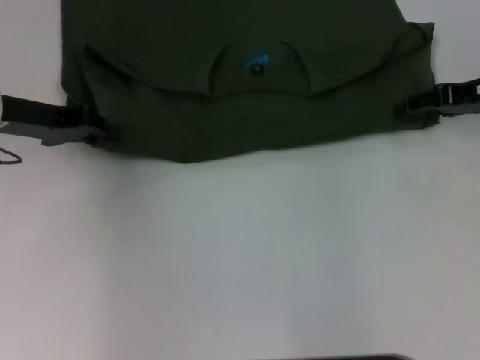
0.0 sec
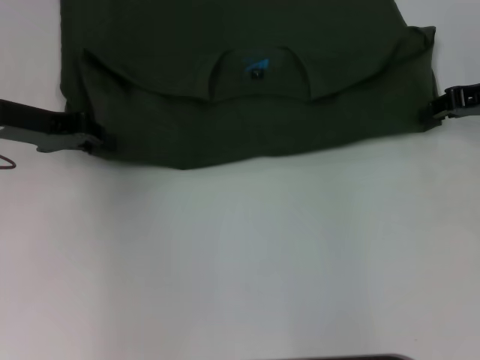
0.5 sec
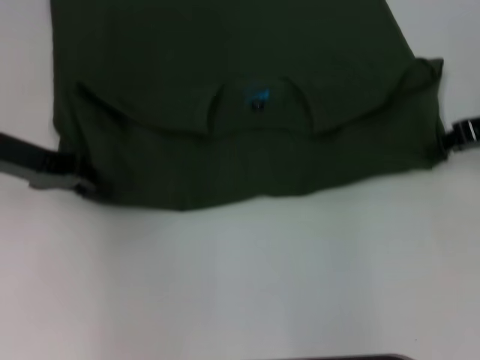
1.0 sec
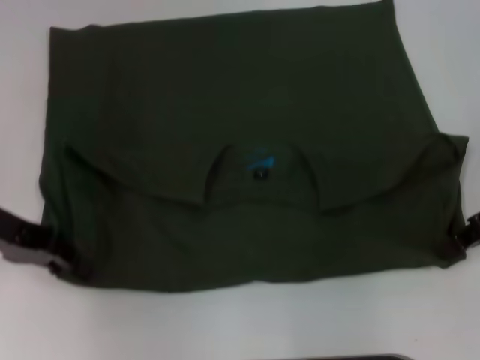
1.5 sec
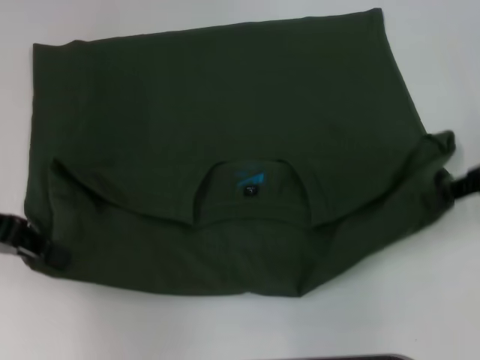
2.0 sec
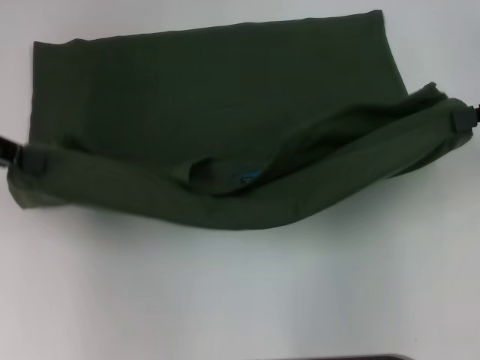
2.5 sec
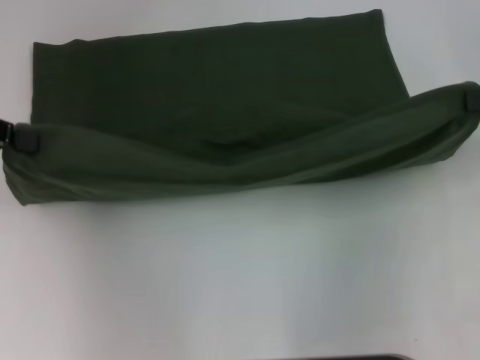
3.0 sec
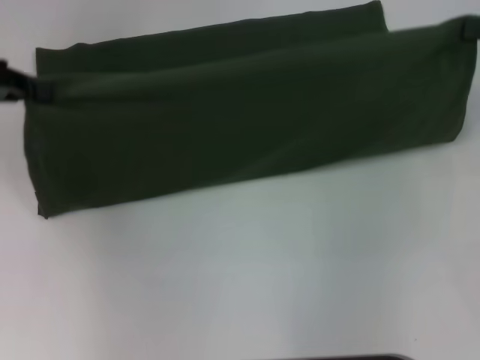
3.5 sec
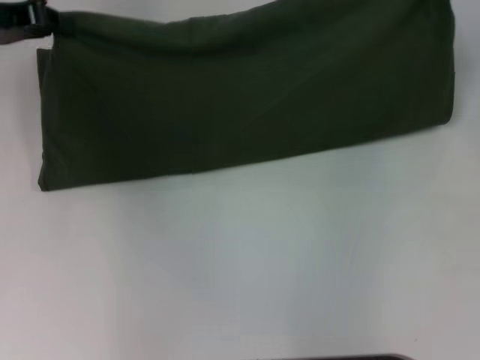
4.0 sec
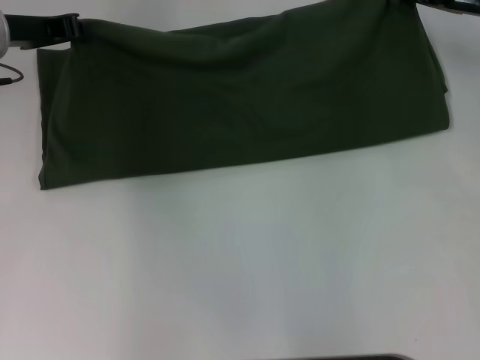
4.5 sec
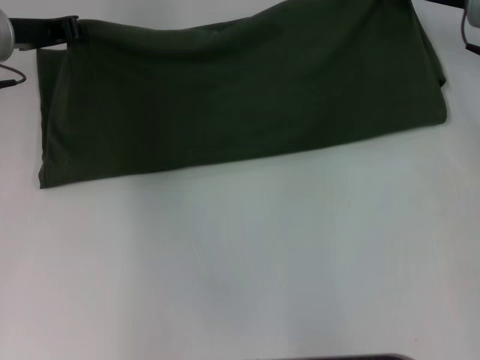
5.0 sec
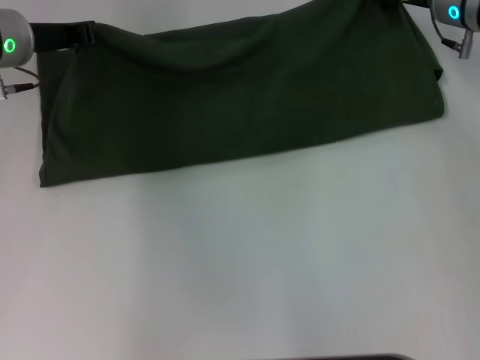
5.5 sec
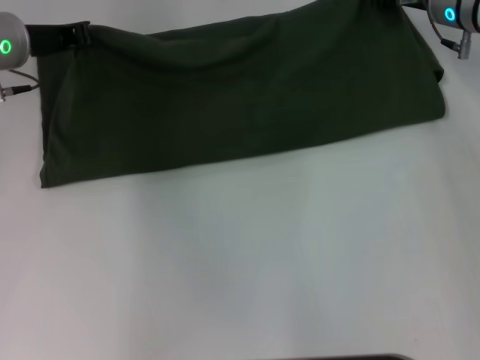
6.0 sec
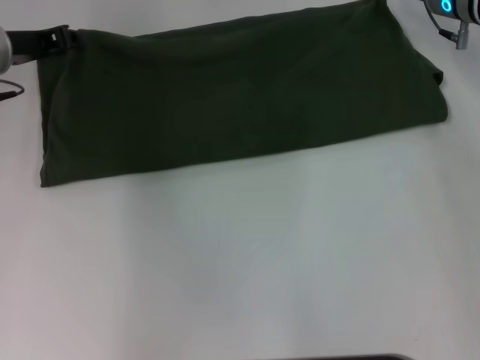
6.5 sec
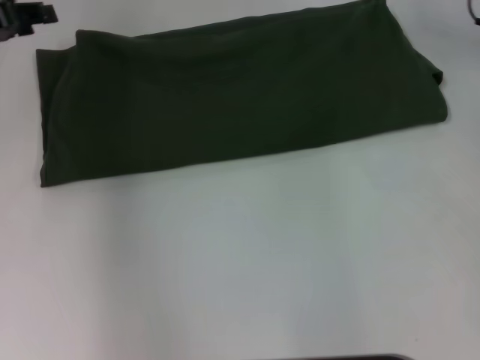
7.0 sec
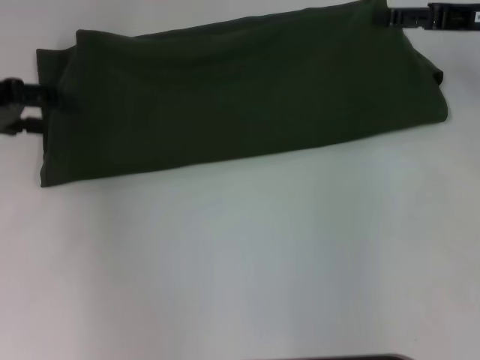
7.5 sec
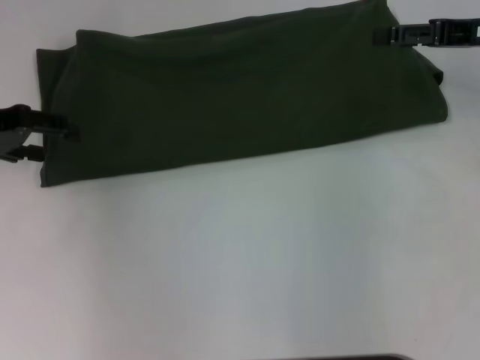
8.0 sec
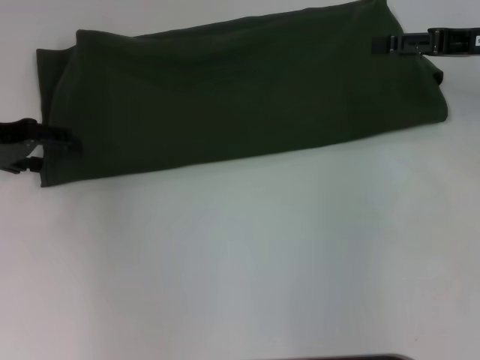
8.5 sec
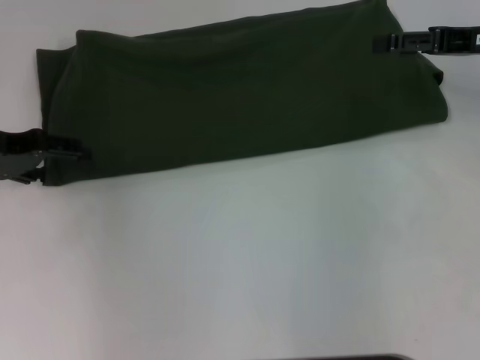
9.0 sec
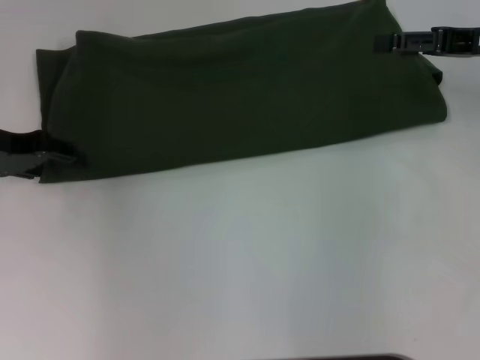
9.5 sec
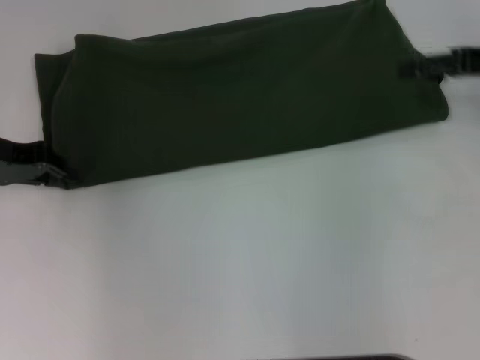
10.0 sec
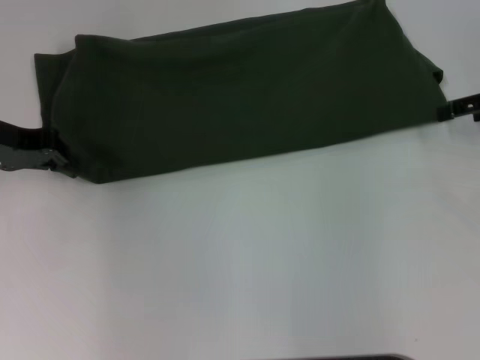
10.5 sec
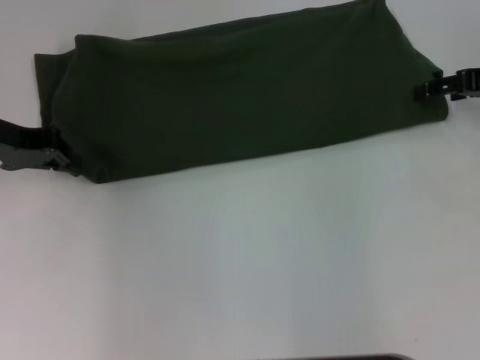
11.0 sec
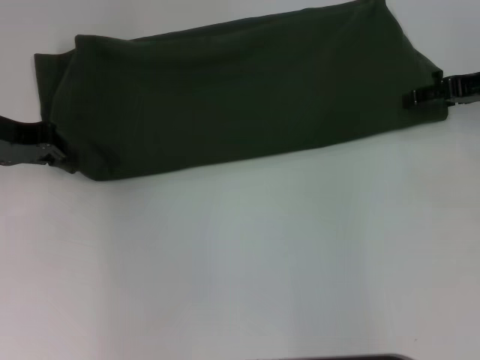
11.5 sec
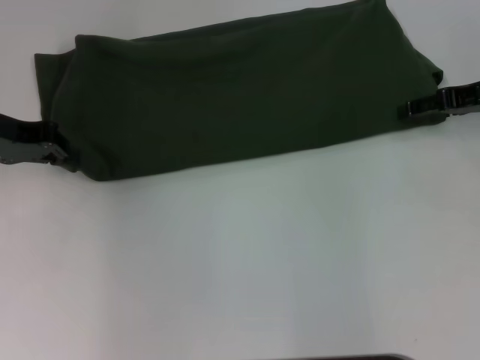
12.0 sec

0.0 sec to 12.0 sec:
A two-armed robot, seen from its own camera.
Step, 2.0 sec to 6.5 sec: Fold the clothes with your left hand.
Step, 2.0 sec to 6.5 sec: Fold the clothes with your right hand.
0.0 sec to 2.0 sec: The left gripper heads backward, covering roughly 10 cm. Meanwhile the right gripper travels backward and upward by some 10 cm, and closes.
2.0 sec to 4.0 sec: The left gripper shifts about 10 cm forward; the right gripper is displaced forward by about 5 cm.
4.0 sec to 6.0 sec: The left gripper travels downward by some 5 cm. Meanwhile the right gripper shifts roughly 15 cm to the left, forward and downward.
6.0 sec to 8.0 sec: The left gripper is displaced to the left and backward by some 10 cm, and opens; the right gripper shifts approximately 10 cm to the right and backward, and opens.
8.0 sec to 10.0 sec: The left gripper closes up.
10.0 sec to 12.0 sec: The left gripper closes up.

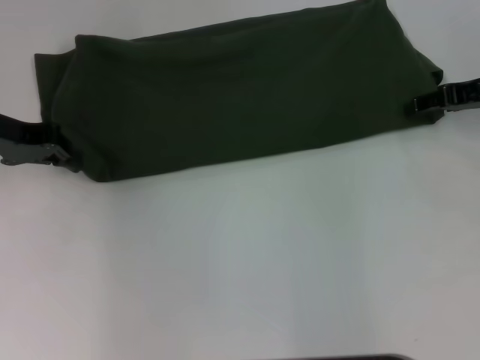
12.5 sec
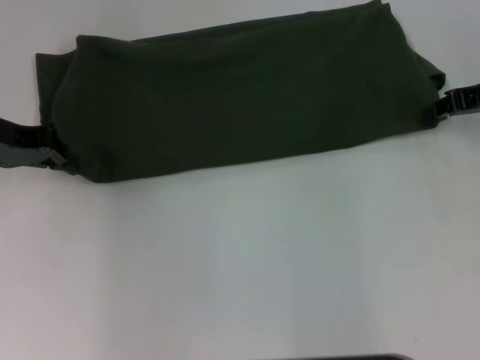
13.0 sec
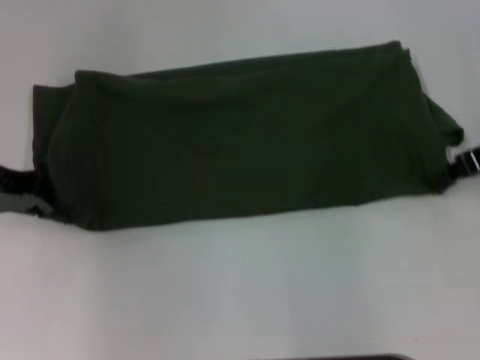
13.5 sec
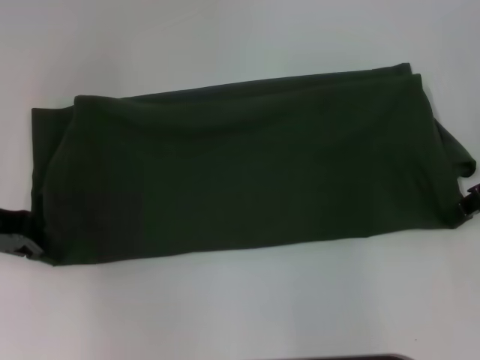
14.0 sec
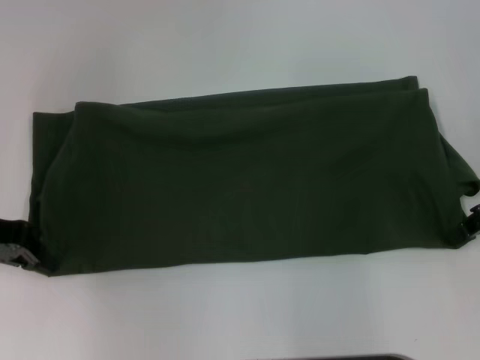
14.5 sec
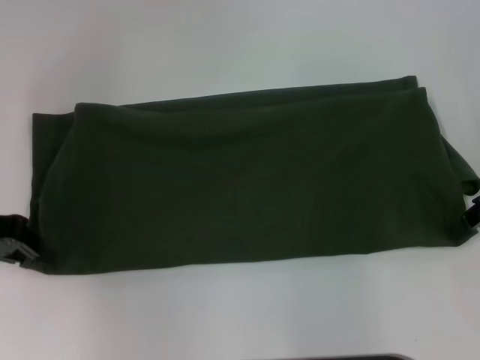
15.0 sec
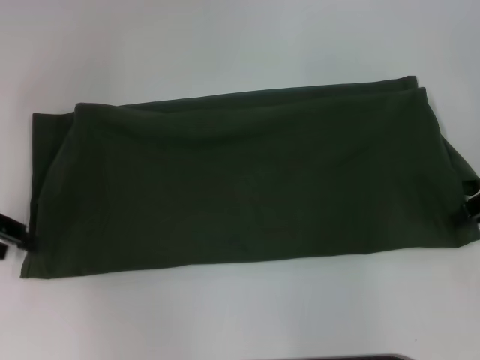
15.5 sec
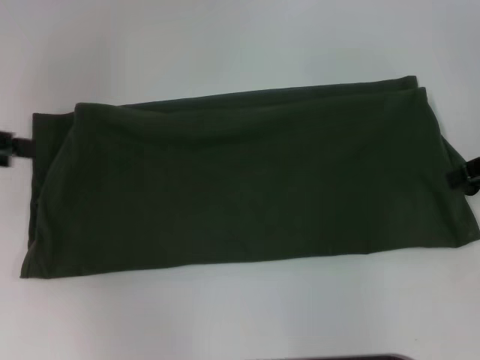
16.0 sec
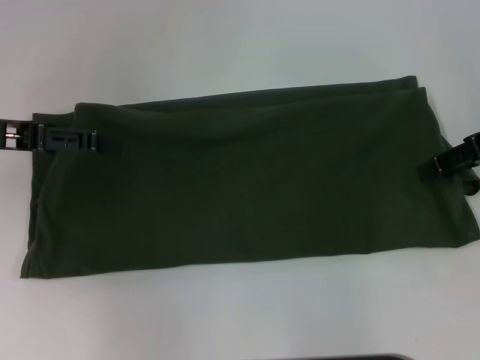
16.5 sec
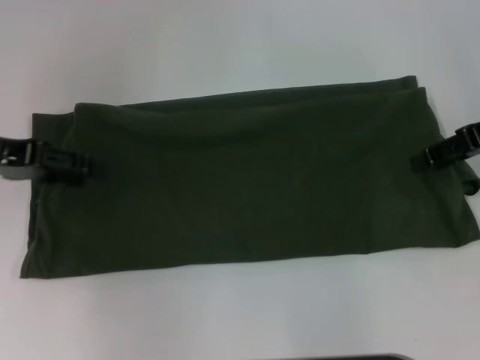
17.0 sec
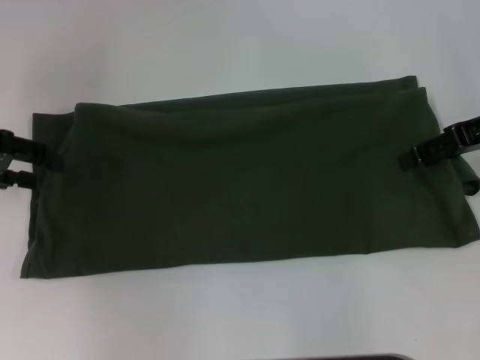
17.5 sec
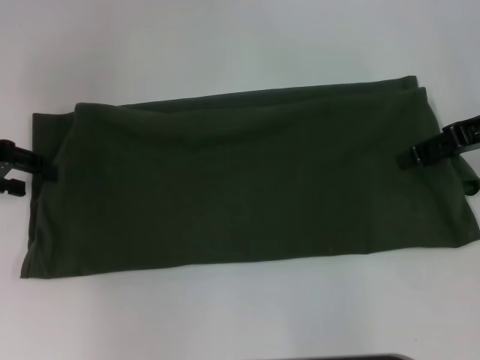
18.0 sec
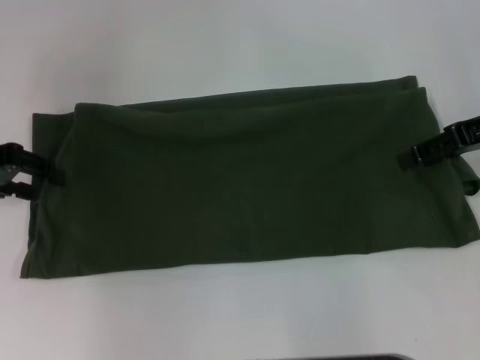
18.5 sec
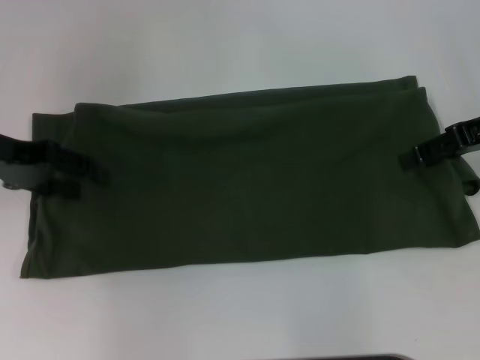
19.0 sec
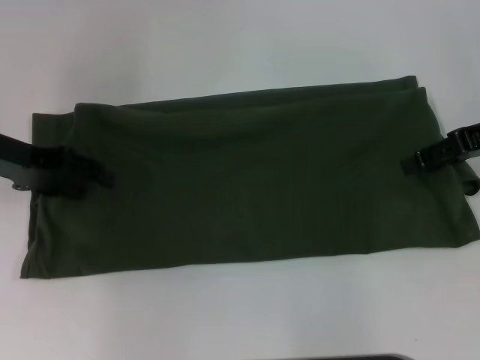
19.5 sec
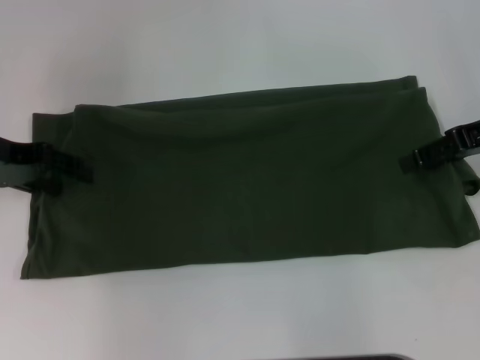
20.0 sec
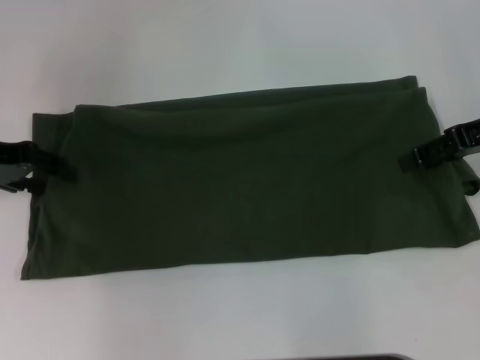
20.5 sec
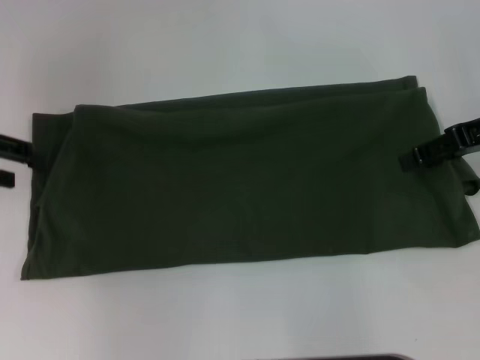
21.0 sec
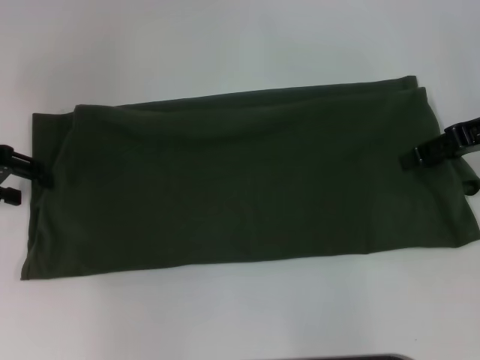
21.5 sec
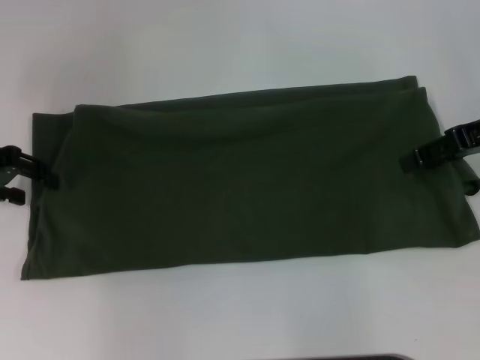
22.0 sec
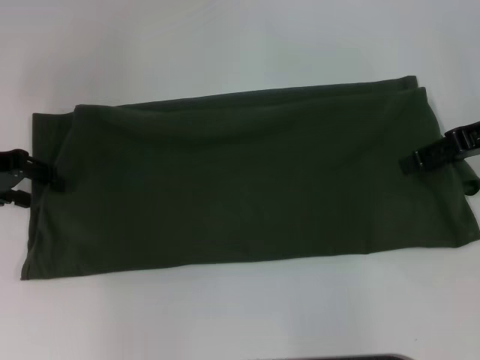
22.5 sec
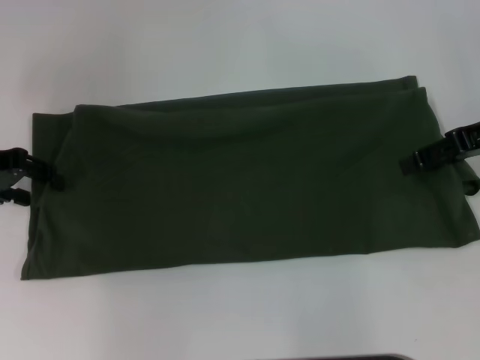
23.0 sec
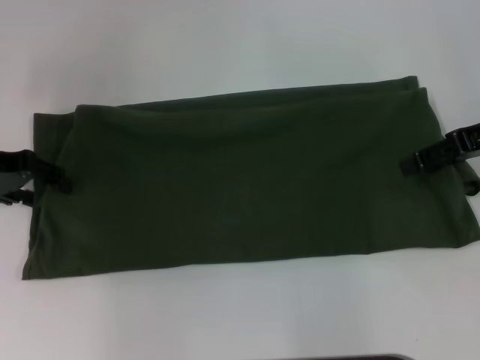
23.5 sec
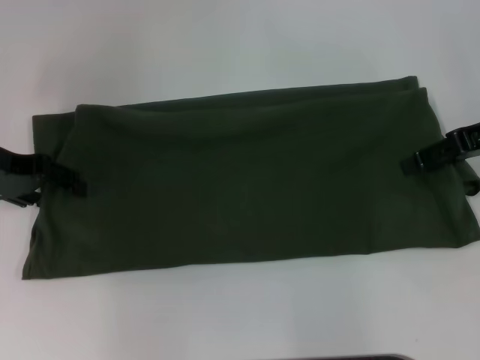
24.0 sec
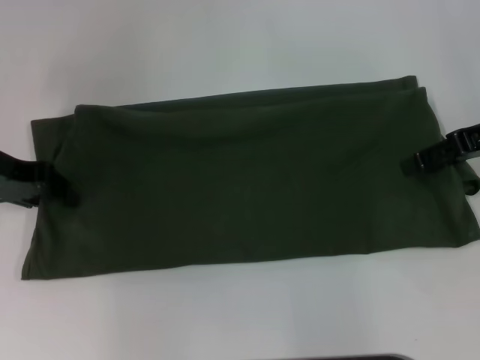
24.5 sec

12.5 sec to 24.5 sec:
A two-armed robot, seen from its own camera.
Step, 12.5 sec to 15.0 sec: Pull the clothes with your left hand.
Step, 12.5 sec to 15.0 sec: Pull the clothes with your right hand.
12.5 sec to 14.5 sec: Both grippers move backward, approximately 5 cm. The right gripper closes its fingers.
14.5 sec to 16.5 sec: The right gripper opens its fingers, while the left gripper opens up.
20.5 sec to 24.5 sec: There are only small adjustments of the grippers.

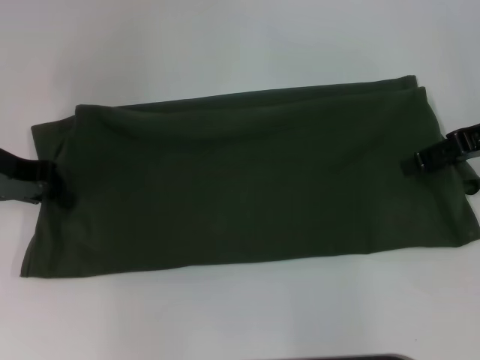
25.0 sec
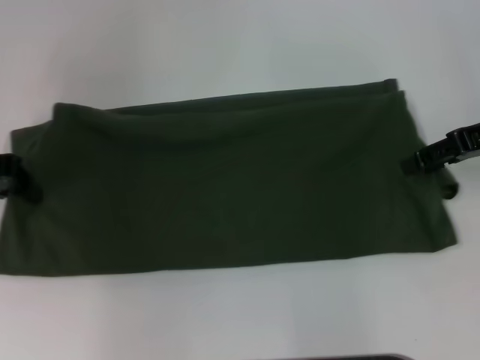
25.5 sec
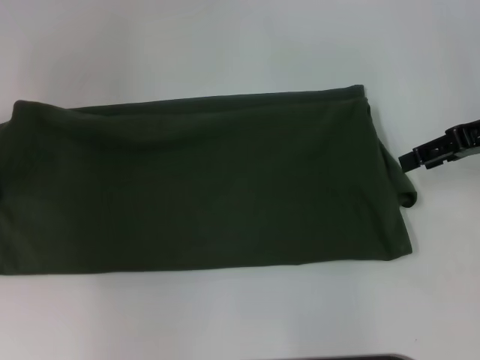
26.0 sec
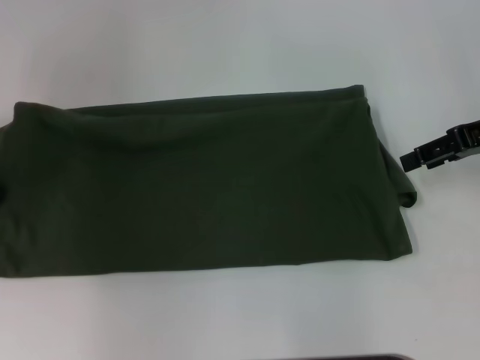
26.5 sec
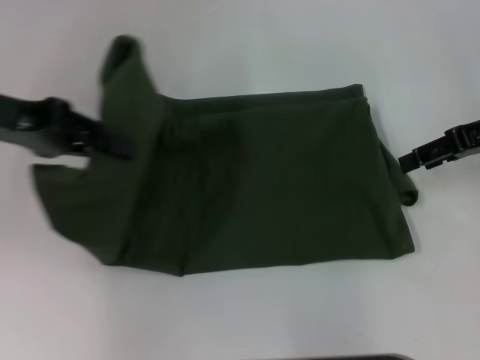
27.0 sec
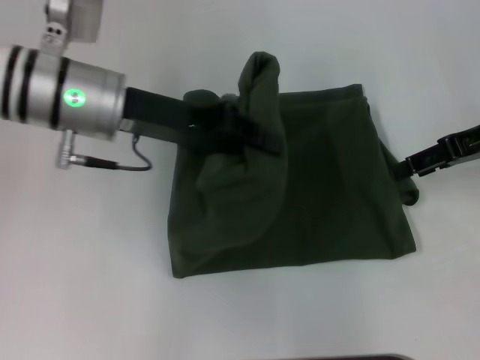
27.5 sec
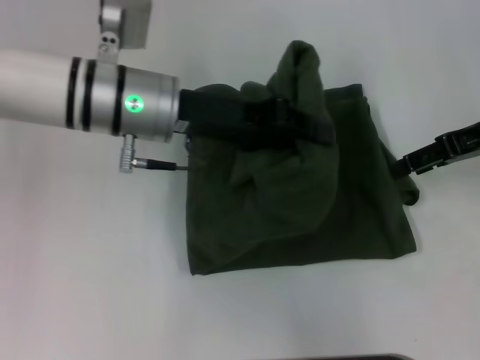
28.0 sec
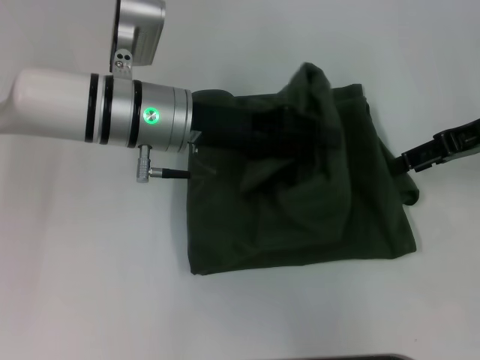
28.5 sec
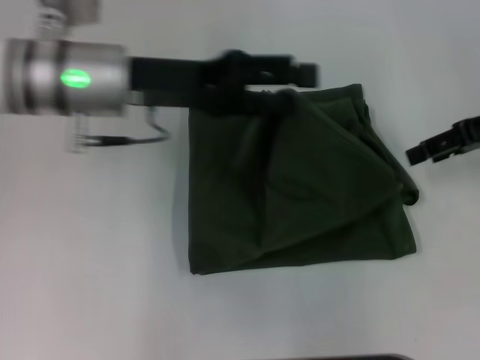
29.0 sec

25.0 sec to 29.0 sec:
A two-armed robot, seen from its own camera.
25.0 sec to 27.0 sec: The left gripper is displaced upward by approximately 5 cm.
27.0 sec to 29.0 sec: The left gripper shifts approximately 15 cm to the right, and opens its fingers.
